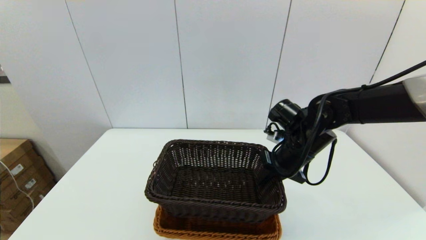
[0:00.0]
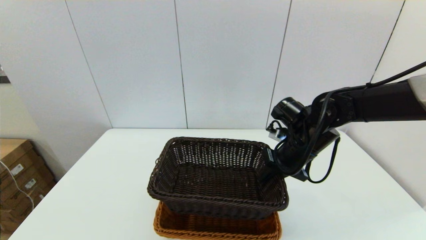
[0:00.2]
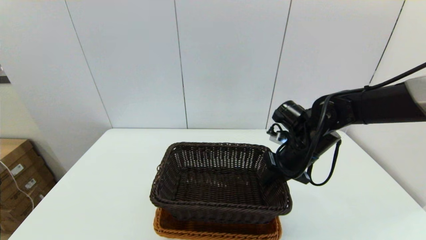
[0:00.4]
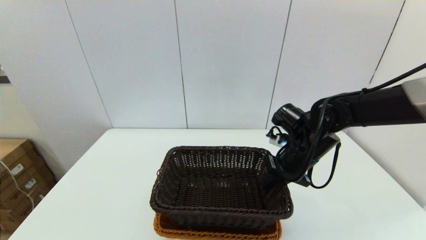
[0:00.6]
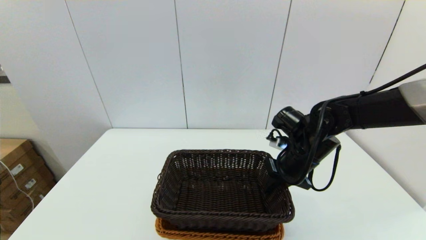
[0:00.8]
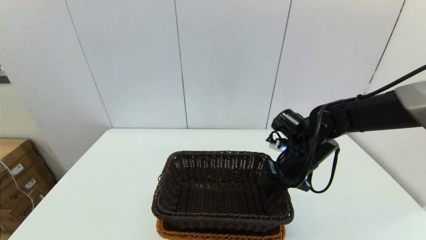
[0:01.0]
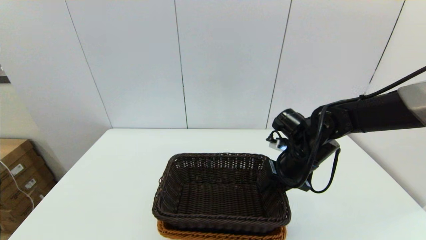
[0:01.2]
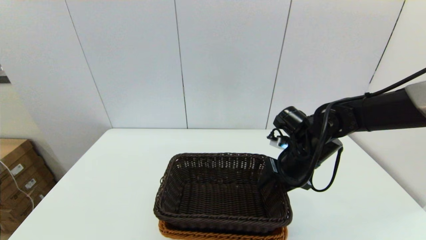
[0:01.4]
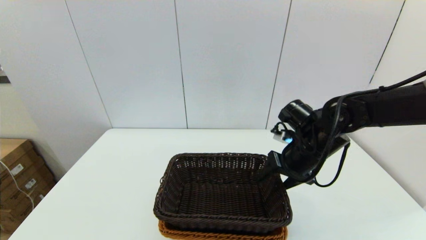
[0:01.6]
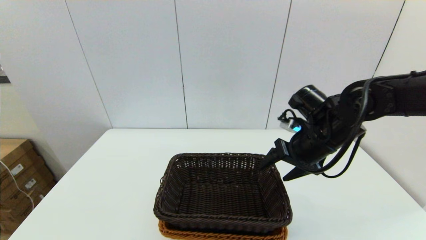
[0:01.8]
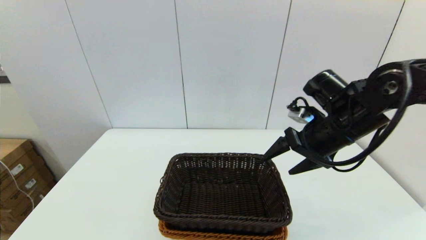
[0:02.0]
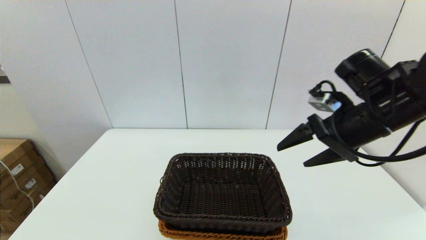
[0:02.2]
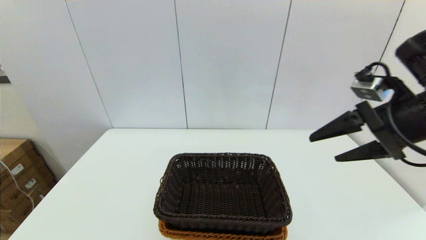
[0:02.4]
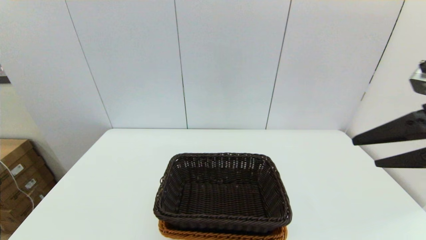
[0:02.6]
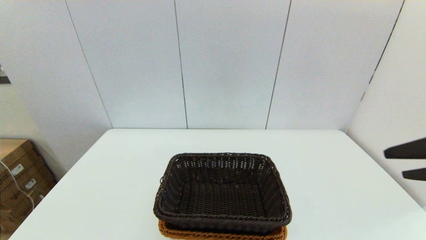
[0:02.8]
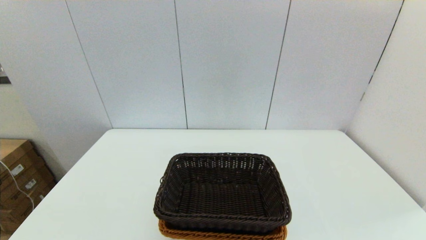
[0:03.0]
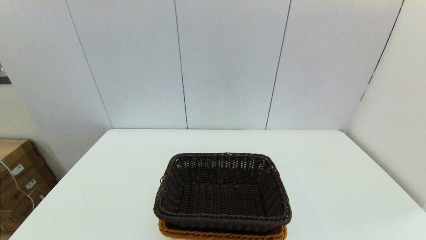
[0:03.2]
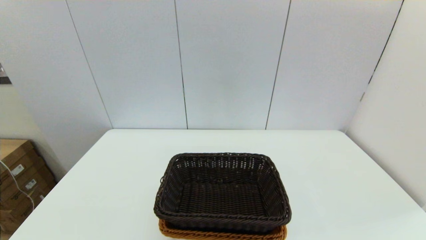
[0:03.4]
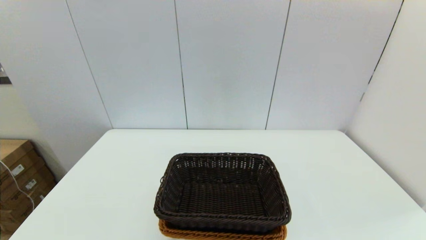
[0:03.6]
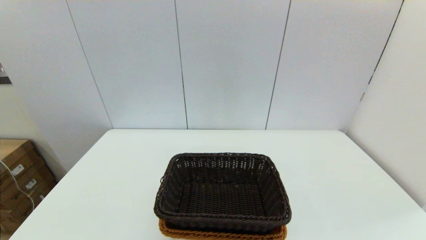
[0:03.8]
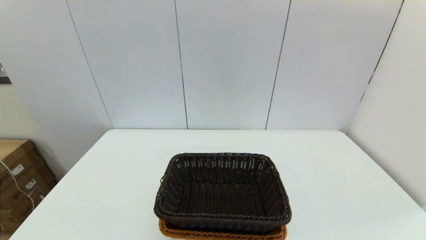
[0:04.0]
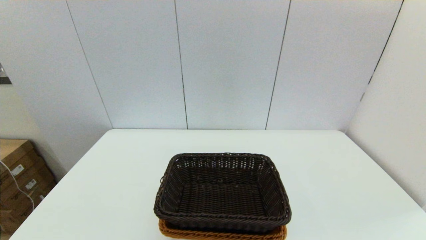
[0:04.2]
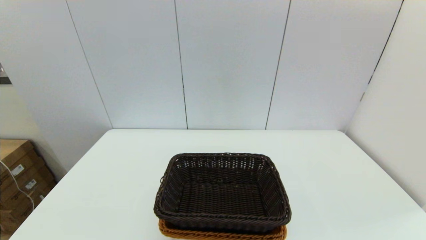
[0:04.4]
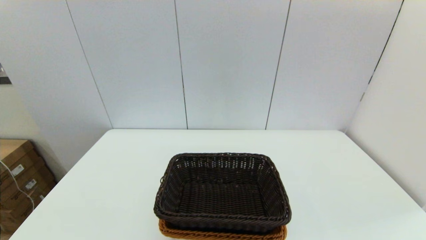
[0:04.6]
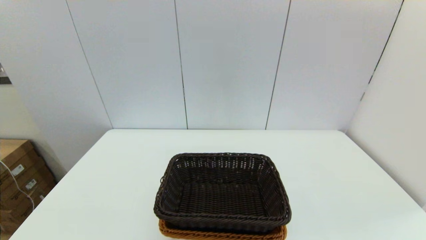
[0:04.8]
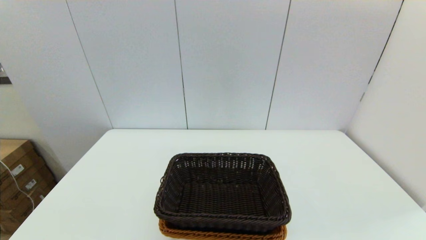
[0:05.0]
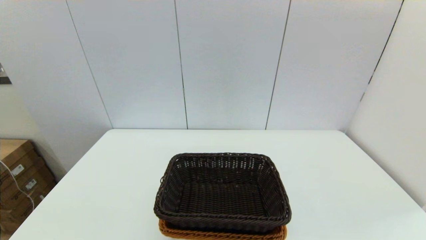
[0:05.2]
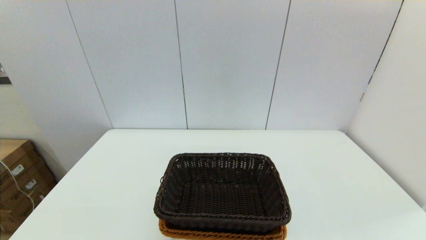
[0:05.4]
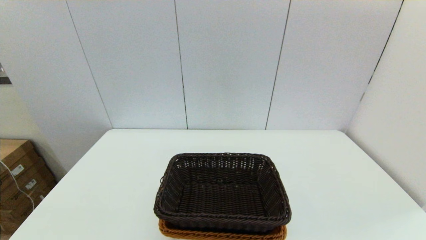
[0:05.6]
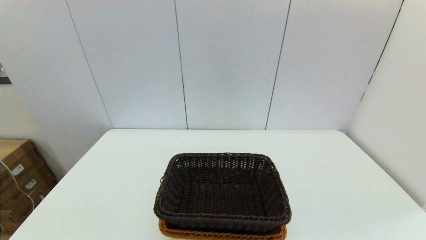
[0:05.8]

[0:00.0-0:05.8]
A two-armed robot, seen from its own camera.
Task of the whole recording: stack a basket on top of another basket.
0:00.0 to 0:01.4: The right gripper opens up.
0:01.4 to 0:02.8: The right gripper is displaced backward, upward and to the right by about 30 cm, and opens its fingers.
0:02.8 to 0:04.4: The right gripper moves downward and backward, approximately 20 cm.
